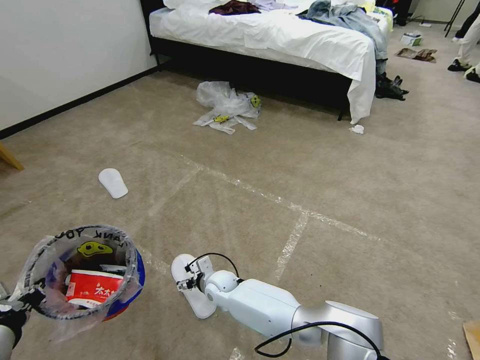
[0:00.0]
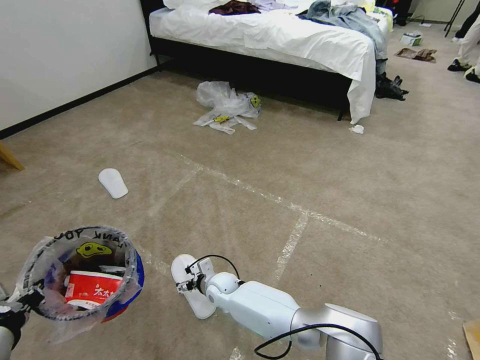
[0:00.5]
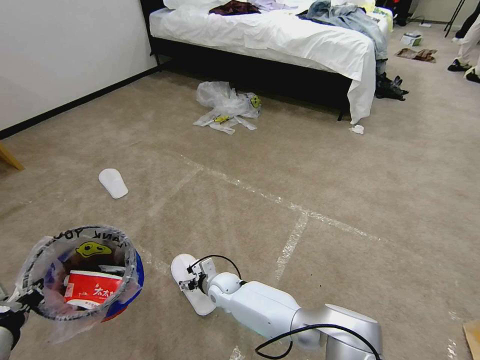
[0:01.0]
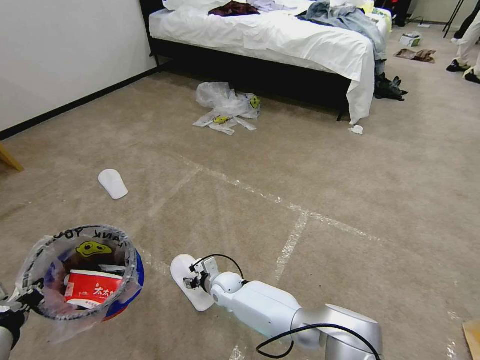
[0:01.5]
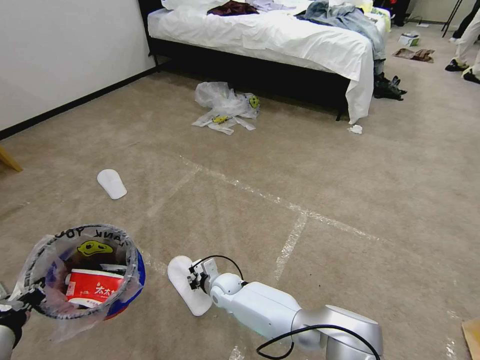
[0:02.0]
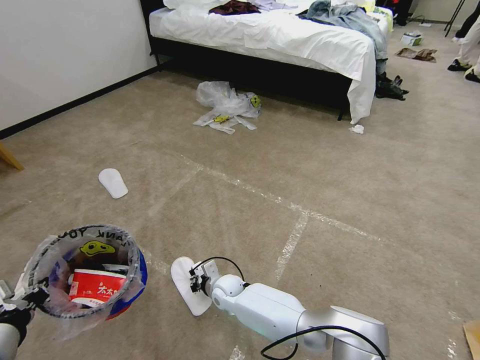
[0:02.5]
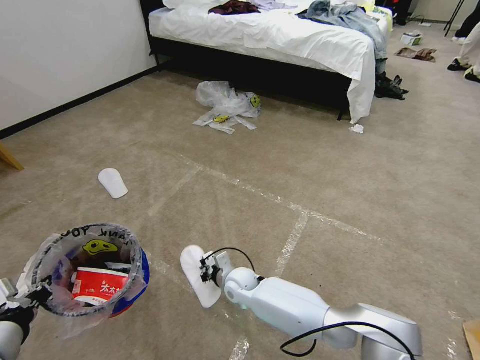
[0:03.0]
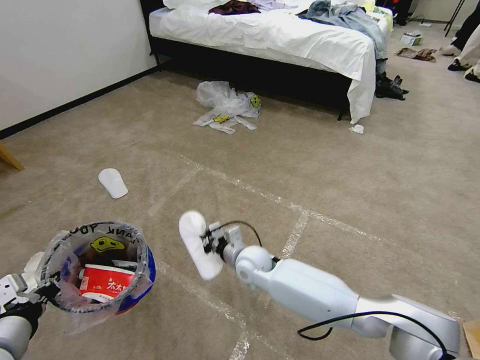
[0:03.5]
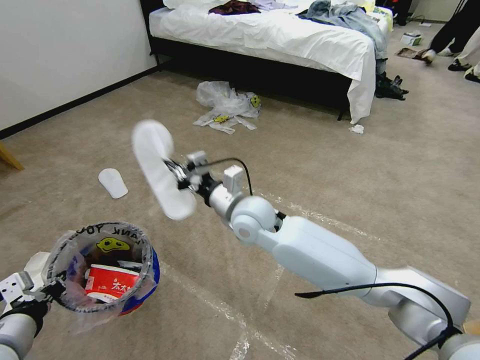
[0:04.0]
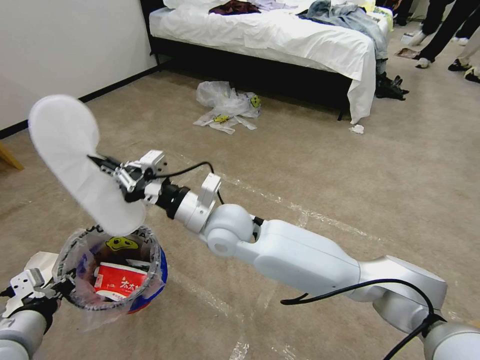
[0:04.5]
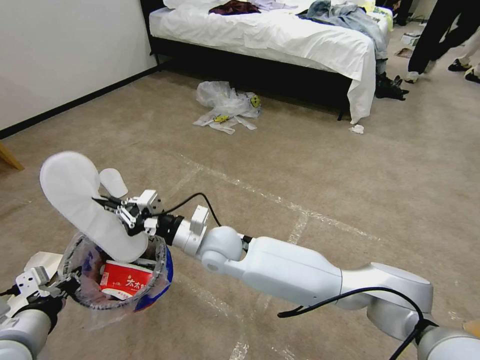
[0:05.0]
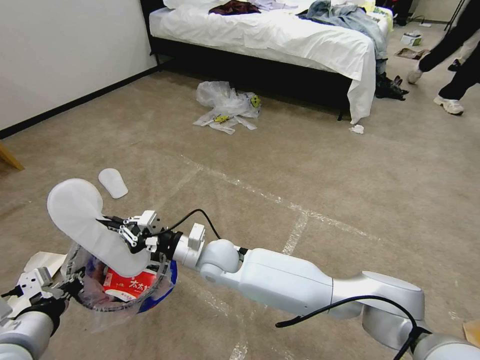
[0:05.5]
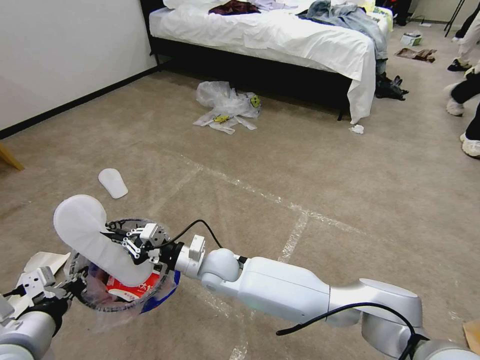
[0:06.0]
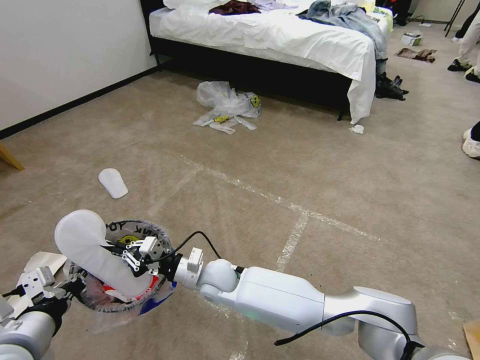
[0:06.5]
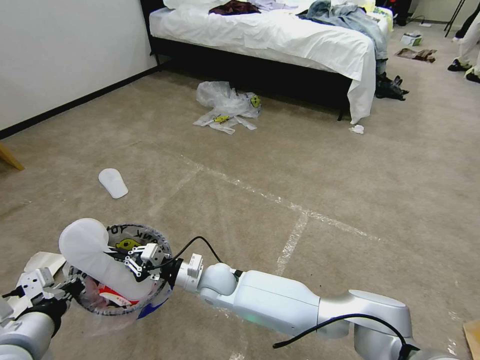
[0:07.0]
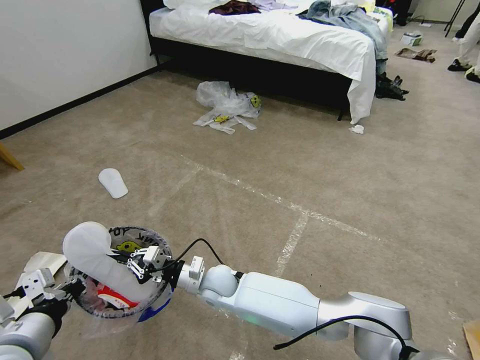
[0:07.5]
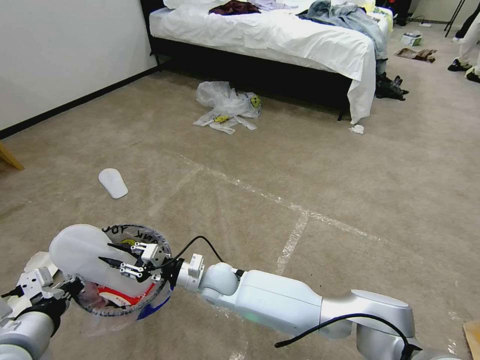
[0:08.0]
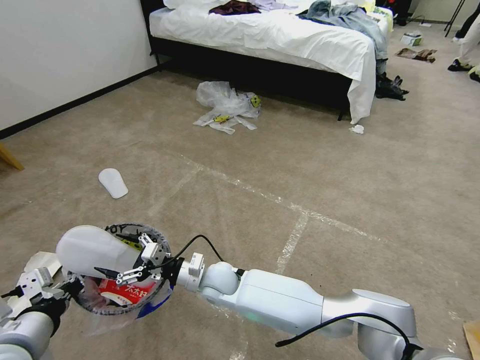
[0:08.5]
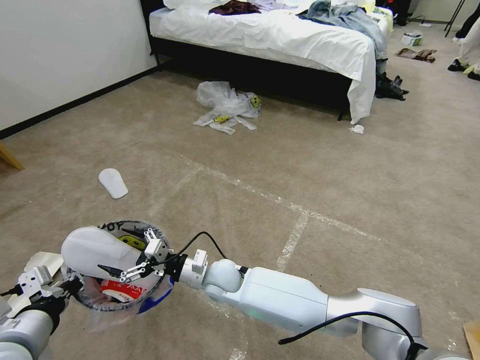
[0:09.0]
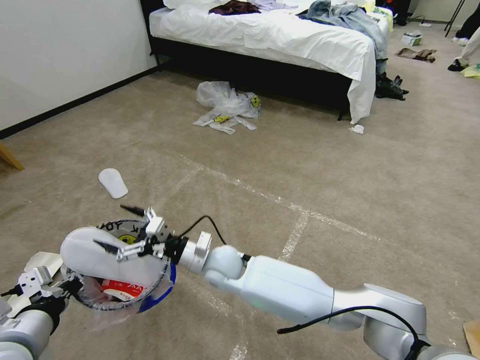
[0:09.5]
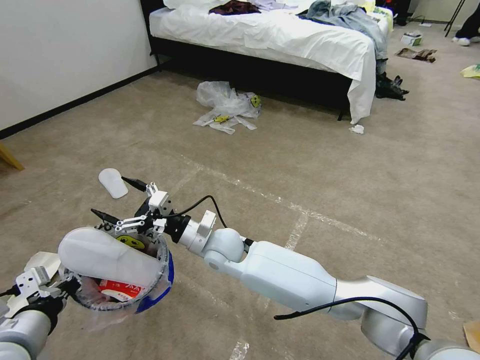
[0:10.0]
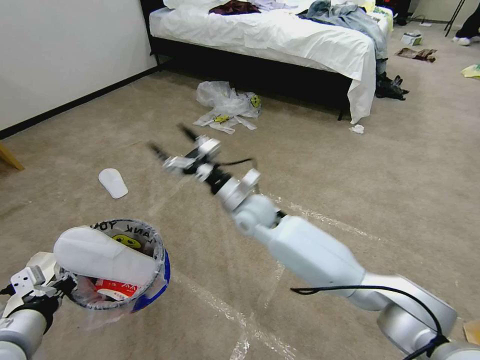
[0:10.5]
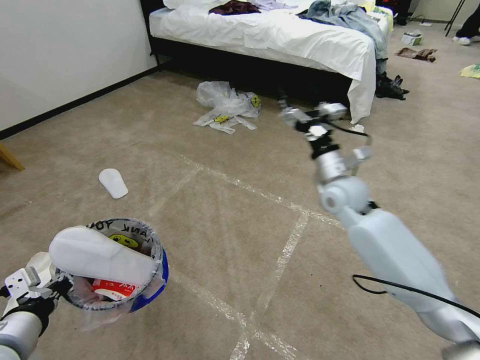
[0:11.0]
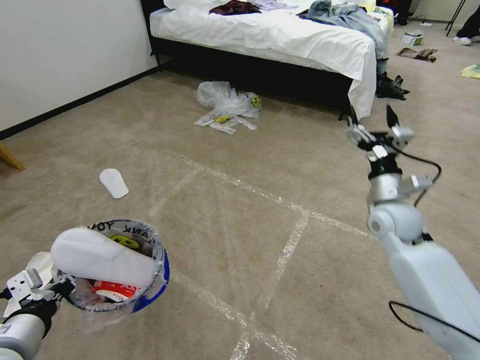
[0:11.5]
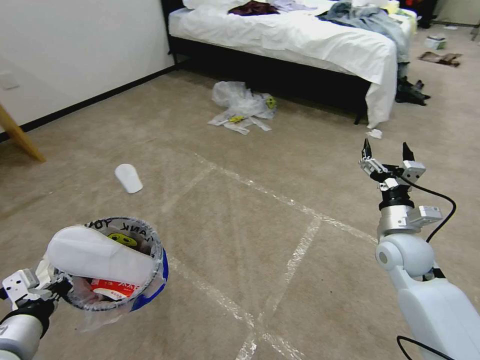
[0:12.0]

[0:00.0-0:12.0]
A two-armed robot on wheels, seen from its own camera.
Task of the whole recording: Pick up the trash bin and place the garbage on the floor into it.
0:00.0 to 0:02.0: The right gripper closes.
0:02.0 to 0:04.0: The right gripper is displaced upward by some 30 cm.
0:04.0 to 0:06.0: The right gripper goes approximately 15 cm downward and to the left.
0:06.0 to 0:08.0: The right gripper heads downward, covering about 5 cm, and opens its fingers.
0:08.0 to 0:10.0: The right gripper goes about 10 cm upward, and opens up.
0:10.0 to 0:12.0: The right gripper travels to the right by roughly 40 cm.

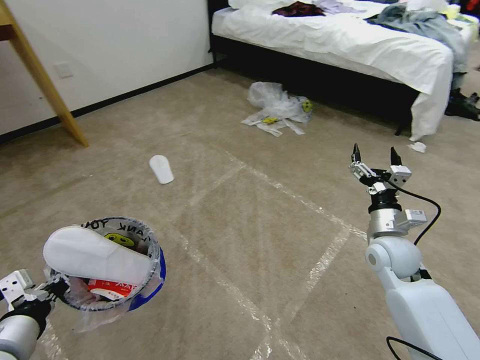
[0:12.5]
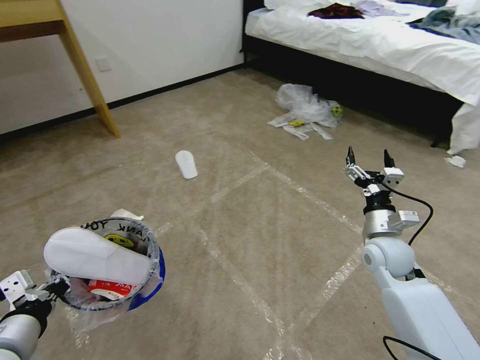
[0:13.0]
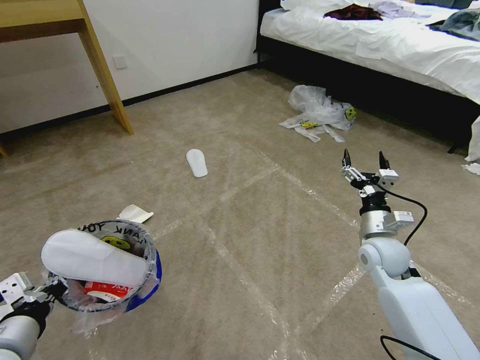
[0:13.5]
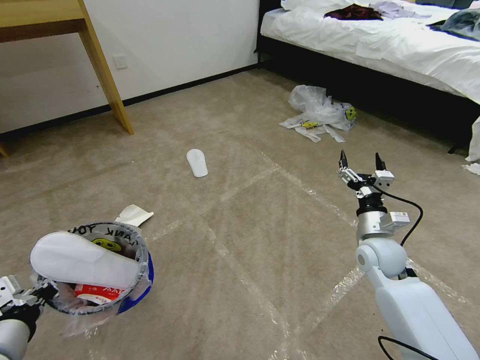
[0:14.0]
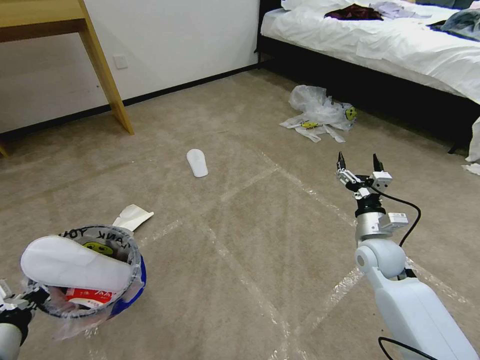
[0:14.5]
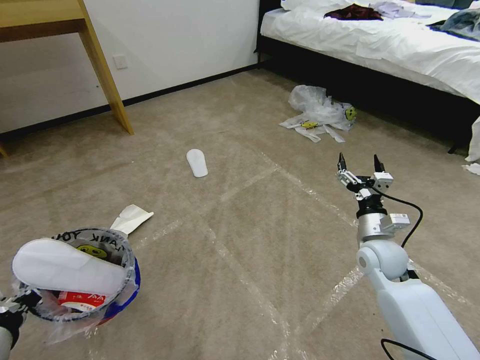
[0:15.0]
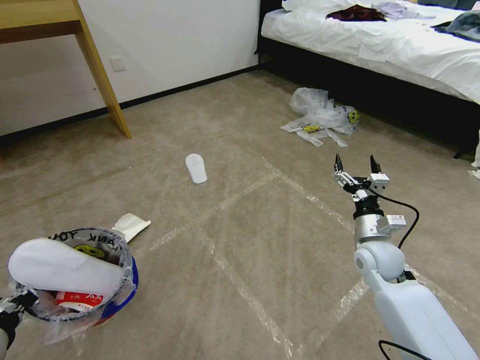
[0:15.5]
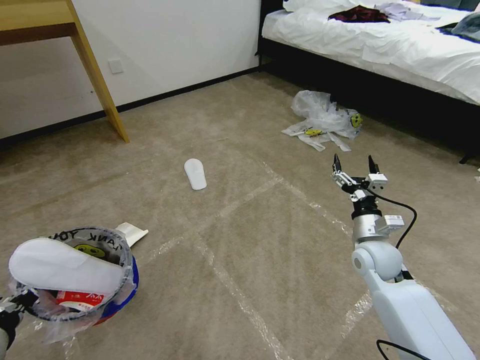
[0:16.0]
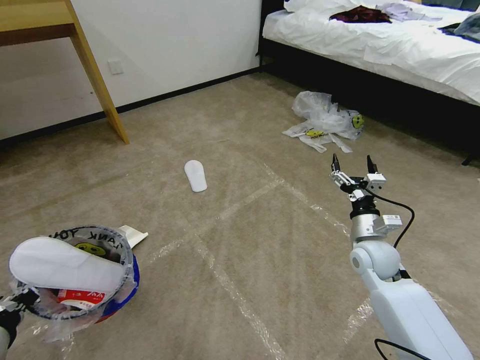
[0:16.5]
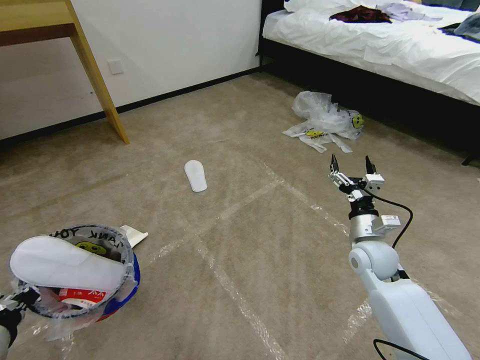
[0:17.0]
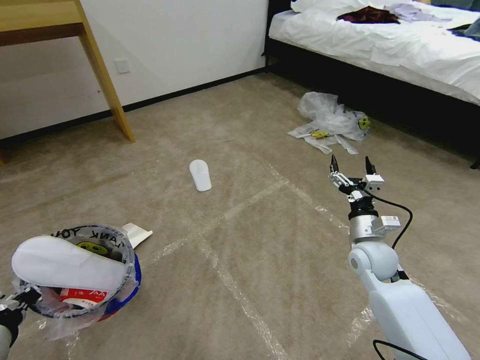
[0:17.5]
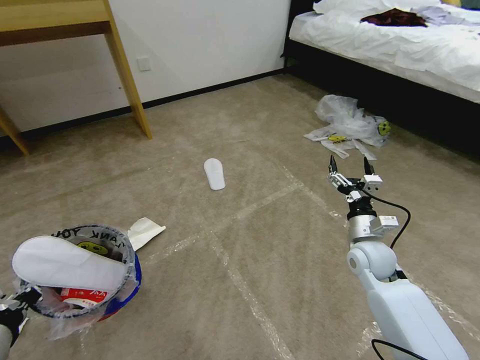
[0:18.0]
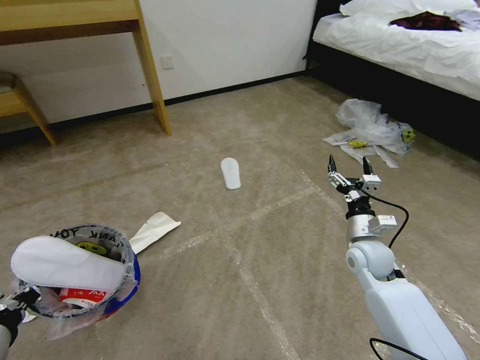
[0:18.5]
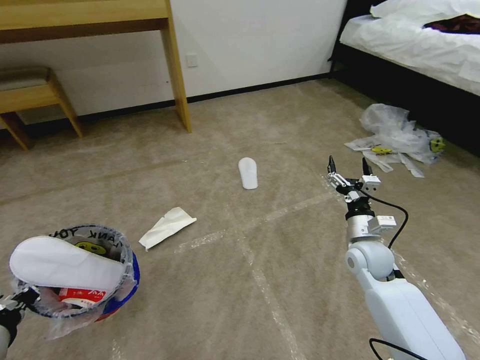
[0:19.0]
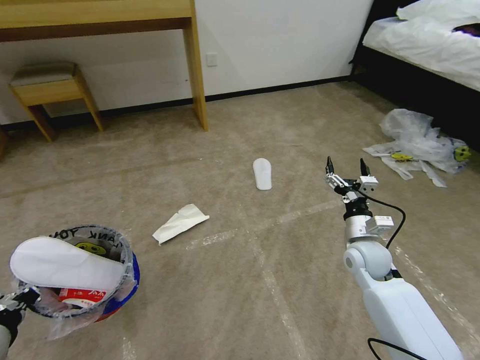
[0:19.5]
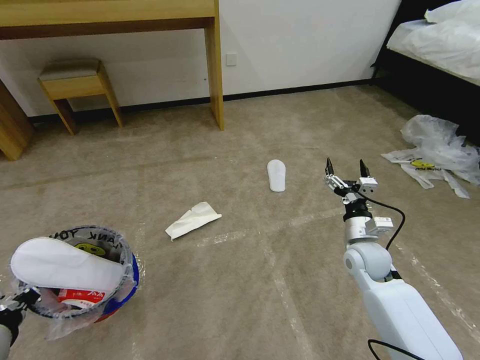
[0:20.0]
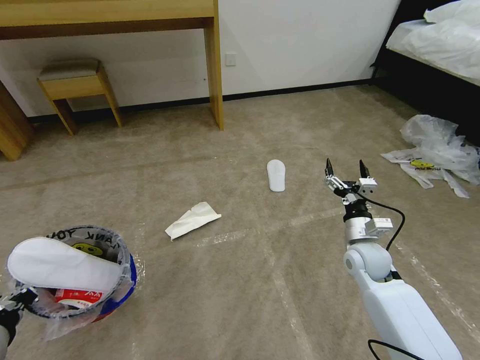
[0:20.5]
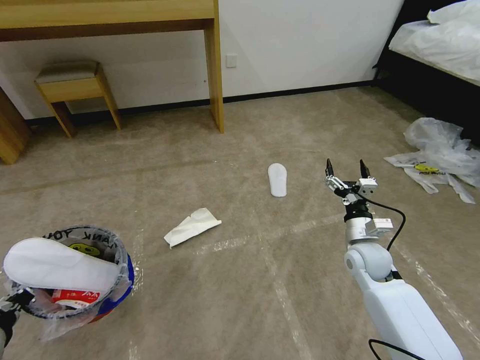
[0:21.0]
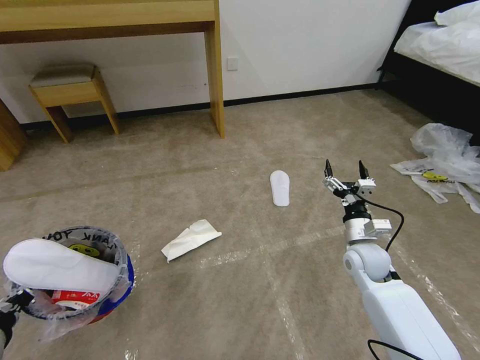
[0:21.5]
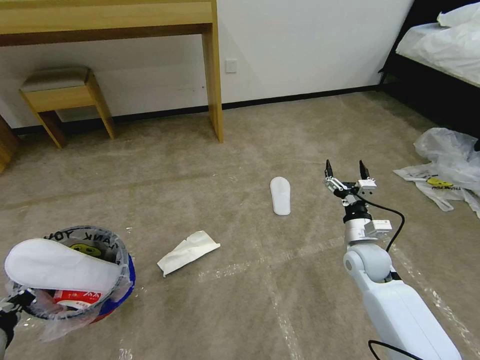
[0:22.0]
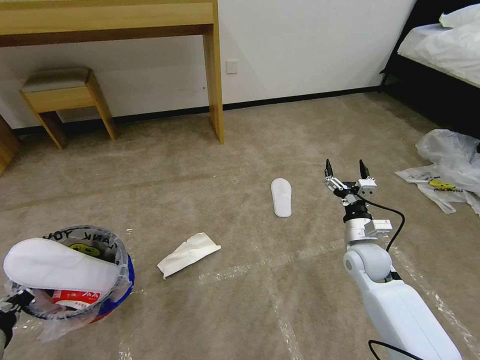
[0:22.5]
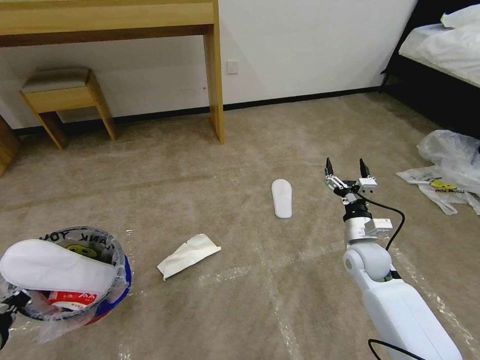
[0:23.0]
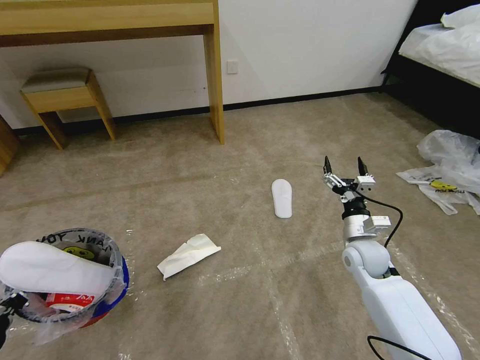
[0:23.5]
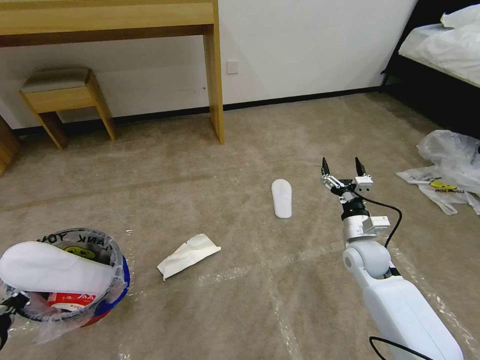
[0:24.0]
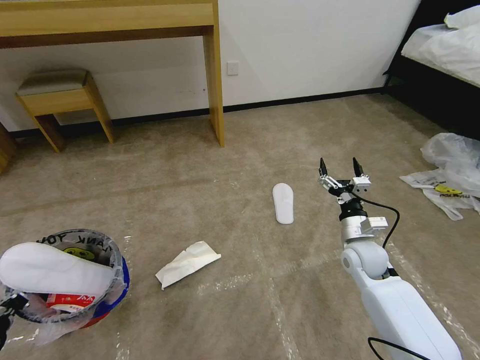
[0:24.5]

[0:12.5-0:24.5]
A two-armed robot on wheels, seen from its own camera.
Task of the whole recording: Pick up the trash bin and place the garbage on the floor into it.
0:14.5 to 0:16.5: The grippers make only small movements.
0:20.5 to 0:24.5: The two grippers keep their place.

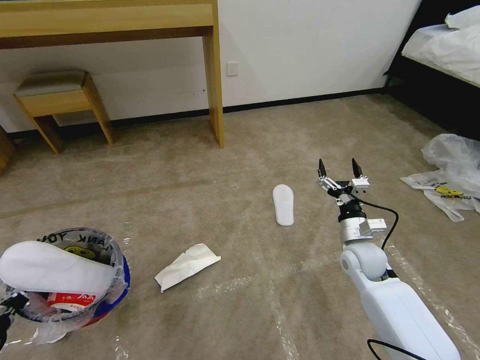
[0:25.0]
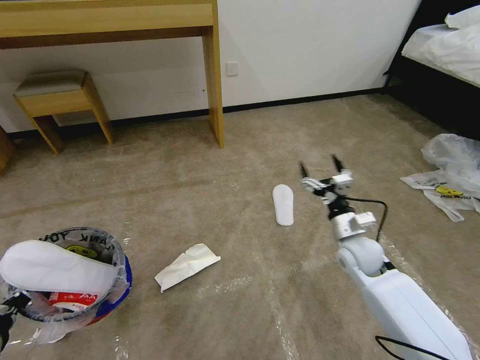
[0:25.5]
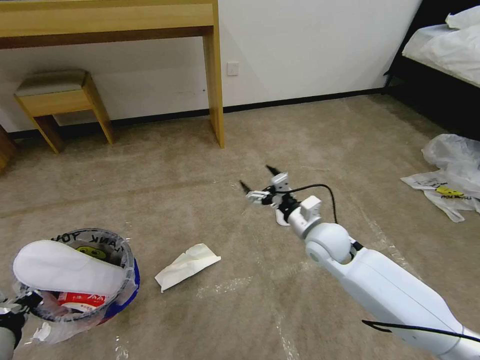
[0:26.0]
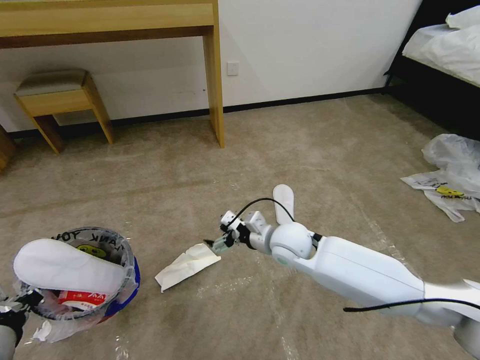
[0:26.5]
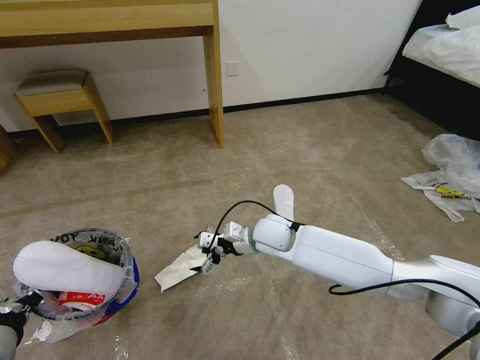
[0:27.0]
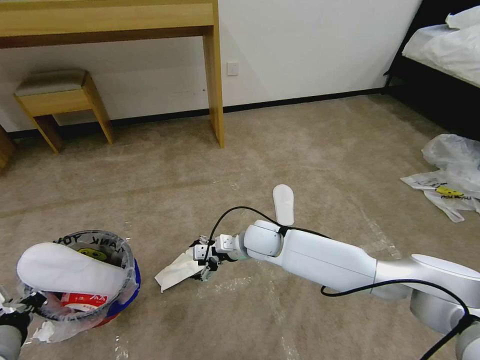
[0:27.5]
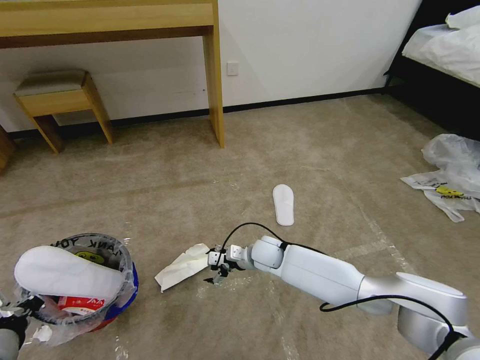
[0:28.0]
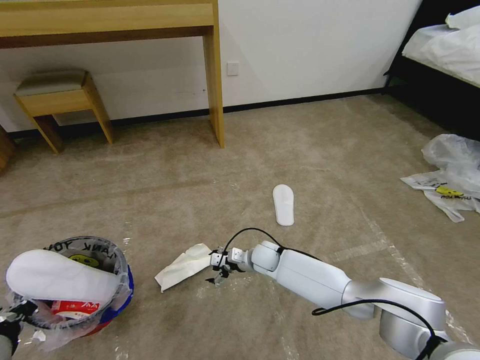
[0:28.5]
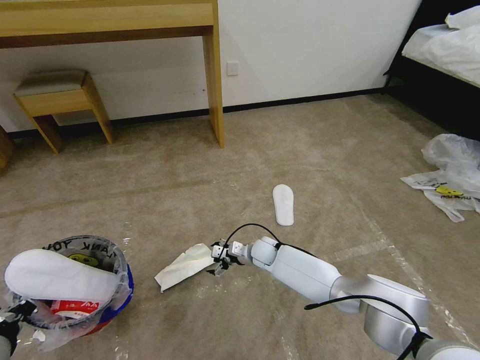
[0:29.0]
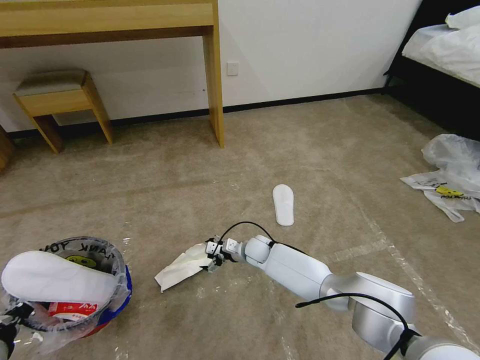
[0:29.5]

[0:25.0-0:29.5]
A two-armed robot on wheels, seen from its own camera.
Task of the whole recording: Pick up the trash bin and place the garbage on the floor into it.
0:25.0 to 0:27.0: The right gripper goes roughly 20 cm to the left.
0:27.0 to 0:29.5: The right gripper travels downward by approximately 15 cm.
